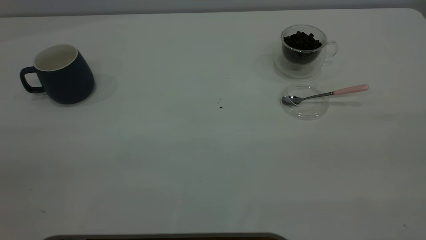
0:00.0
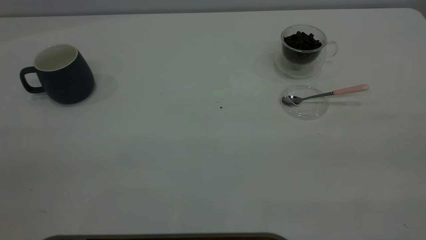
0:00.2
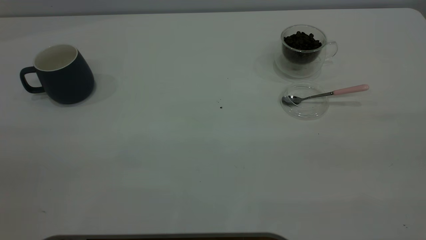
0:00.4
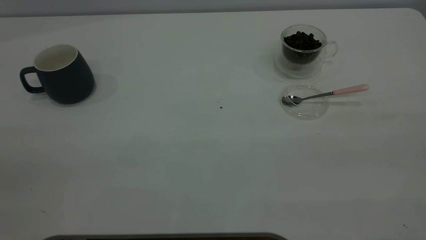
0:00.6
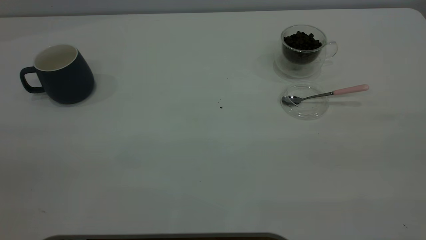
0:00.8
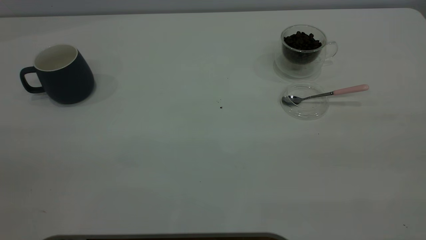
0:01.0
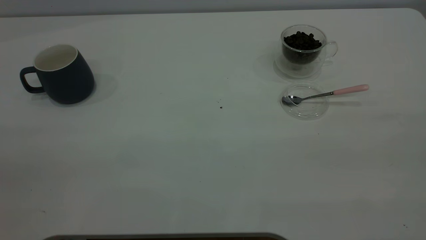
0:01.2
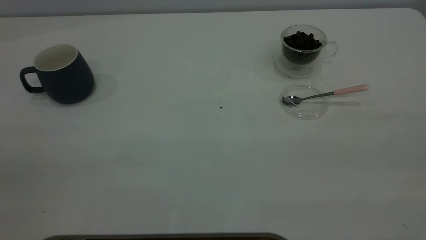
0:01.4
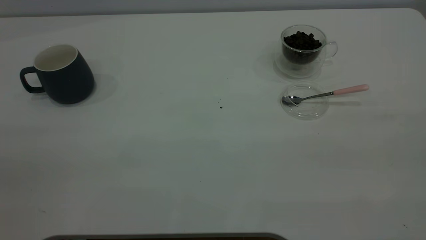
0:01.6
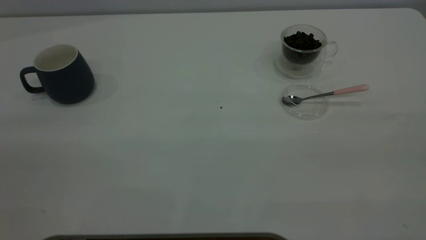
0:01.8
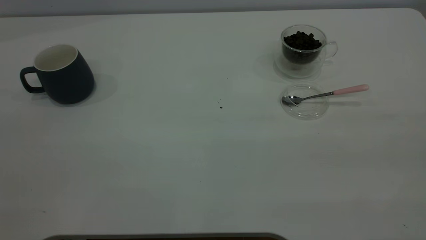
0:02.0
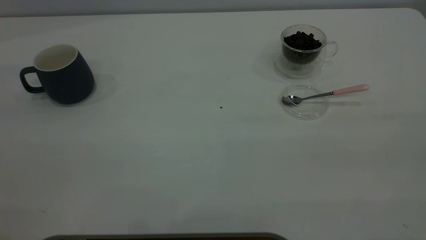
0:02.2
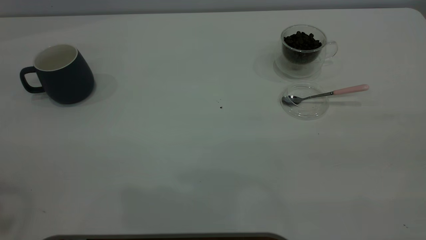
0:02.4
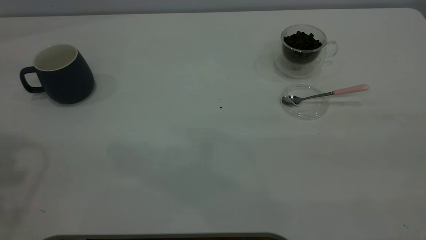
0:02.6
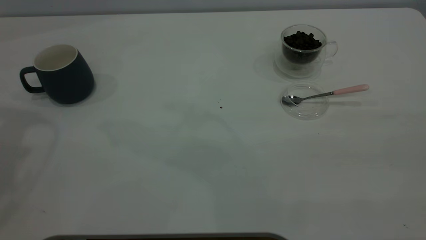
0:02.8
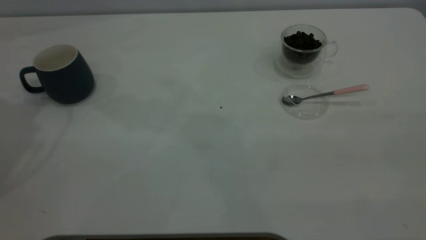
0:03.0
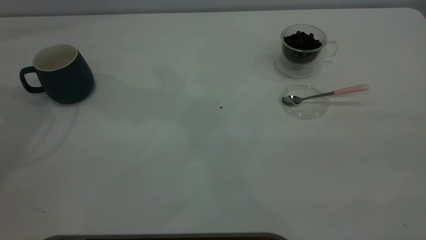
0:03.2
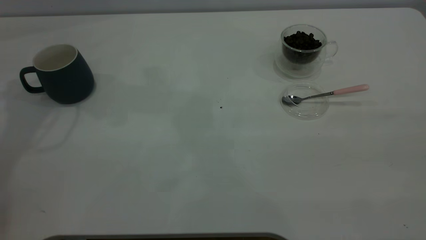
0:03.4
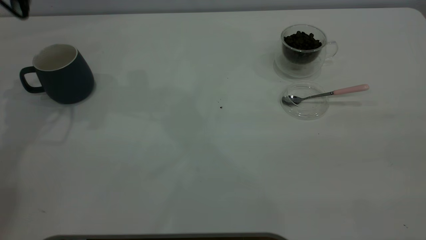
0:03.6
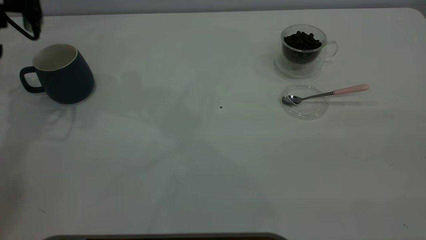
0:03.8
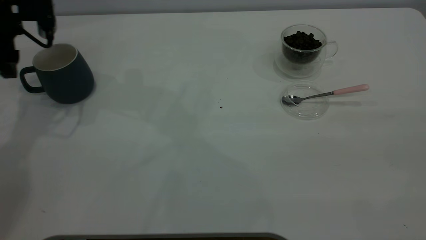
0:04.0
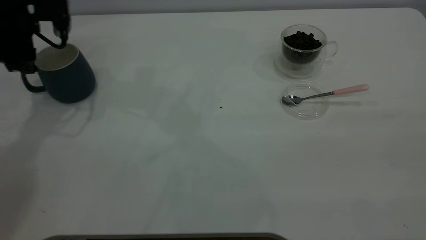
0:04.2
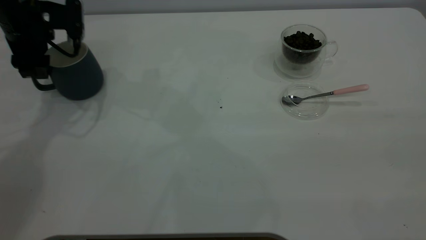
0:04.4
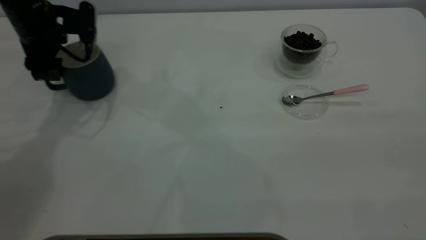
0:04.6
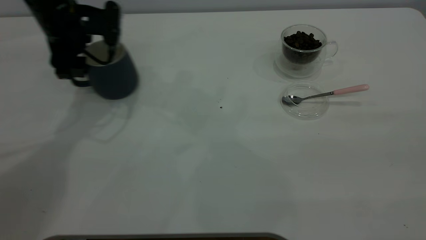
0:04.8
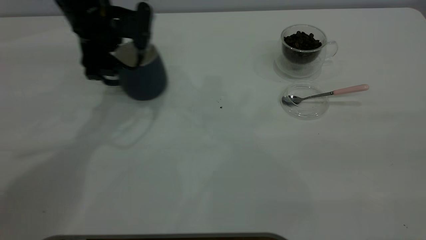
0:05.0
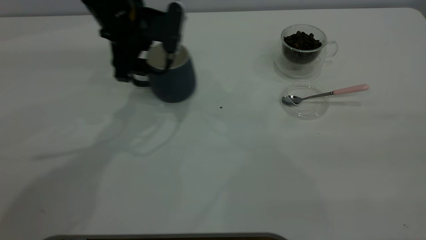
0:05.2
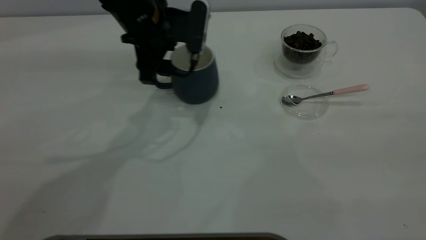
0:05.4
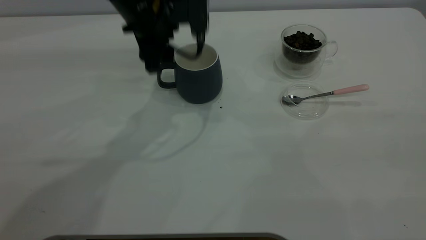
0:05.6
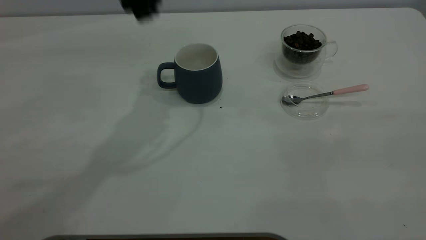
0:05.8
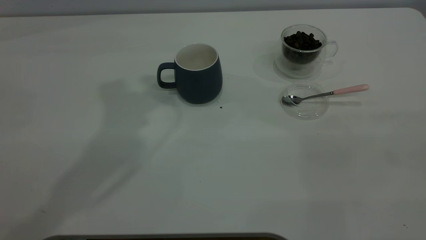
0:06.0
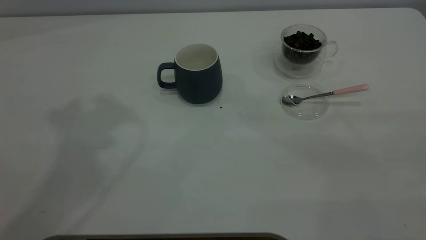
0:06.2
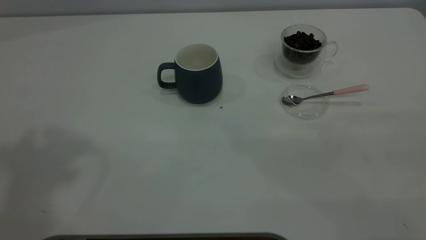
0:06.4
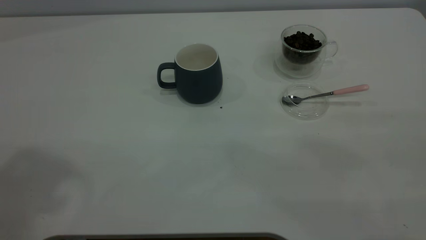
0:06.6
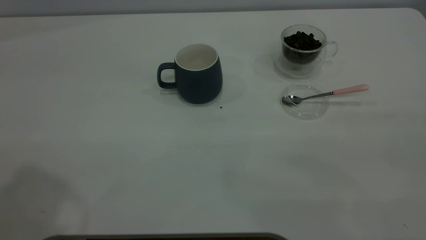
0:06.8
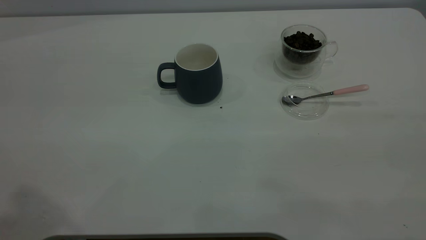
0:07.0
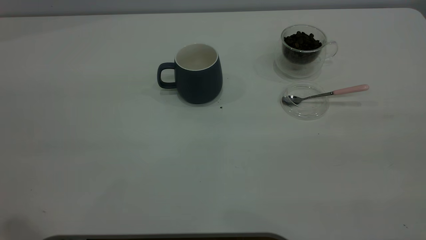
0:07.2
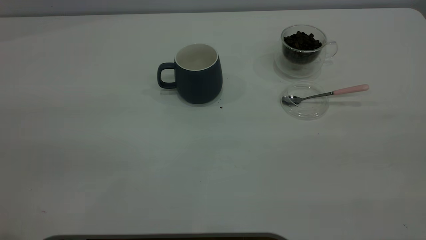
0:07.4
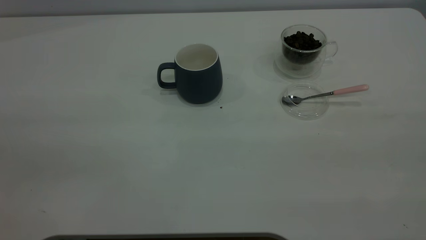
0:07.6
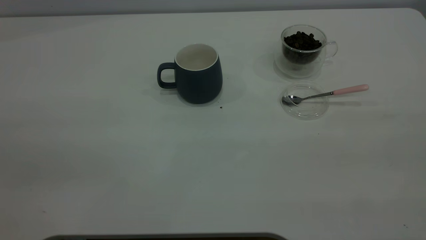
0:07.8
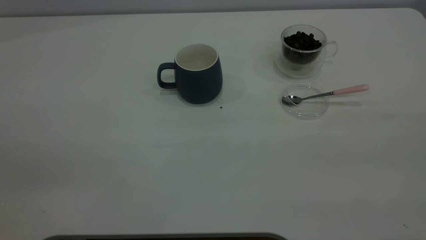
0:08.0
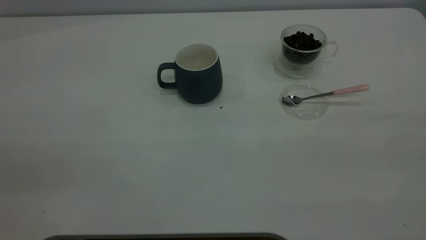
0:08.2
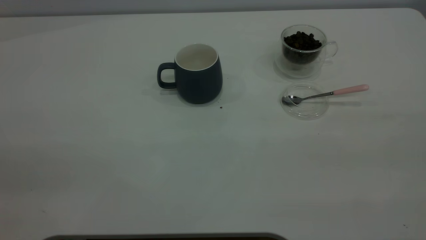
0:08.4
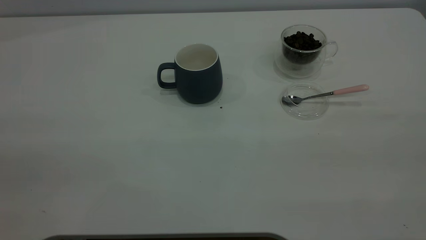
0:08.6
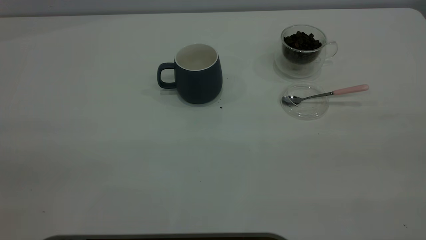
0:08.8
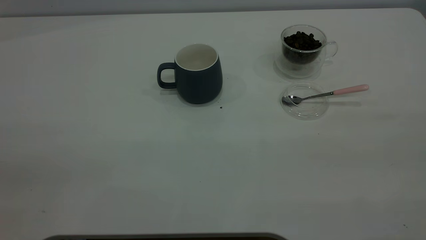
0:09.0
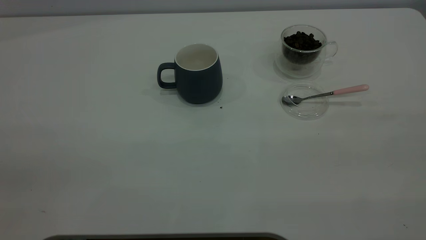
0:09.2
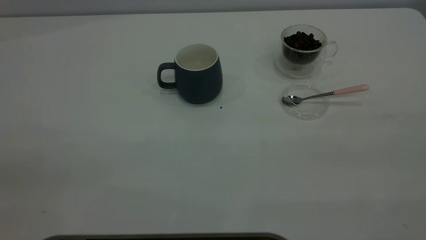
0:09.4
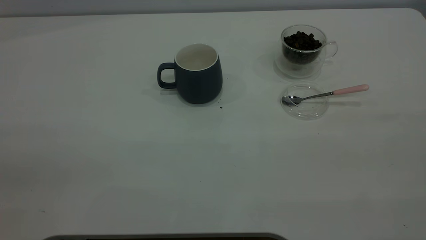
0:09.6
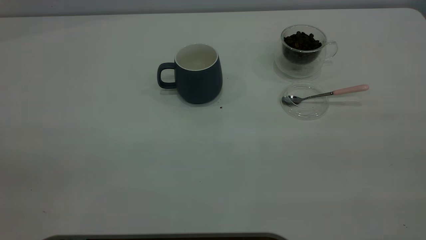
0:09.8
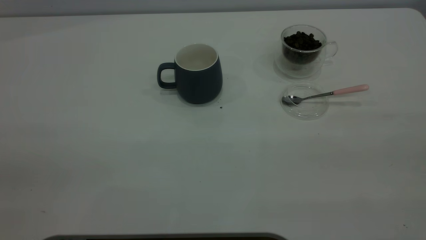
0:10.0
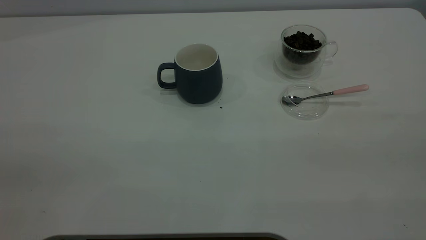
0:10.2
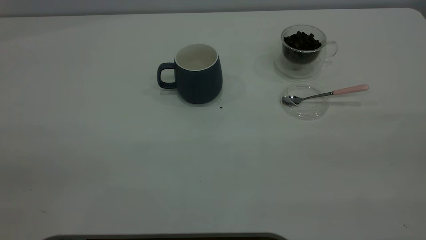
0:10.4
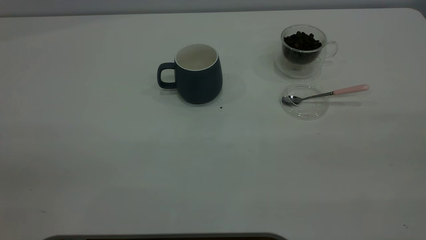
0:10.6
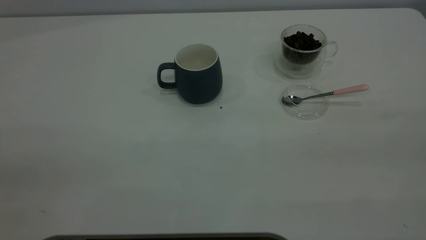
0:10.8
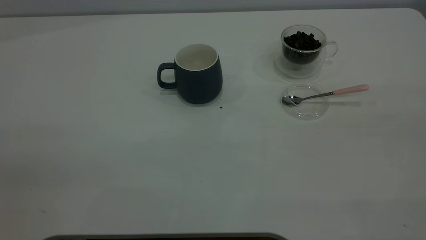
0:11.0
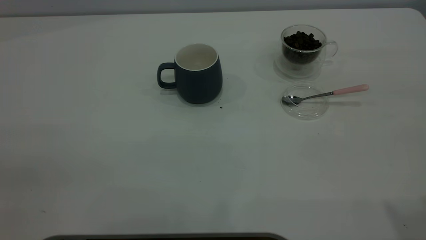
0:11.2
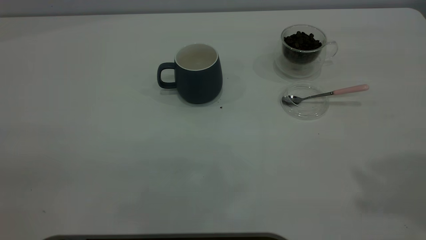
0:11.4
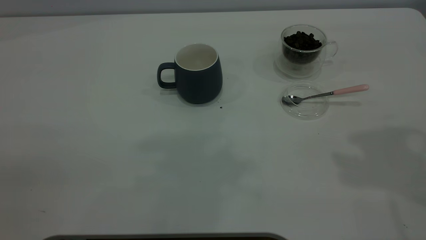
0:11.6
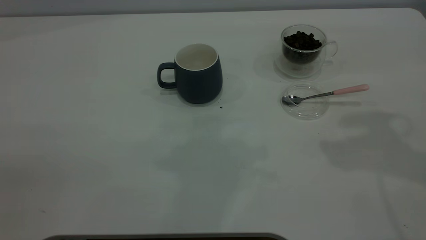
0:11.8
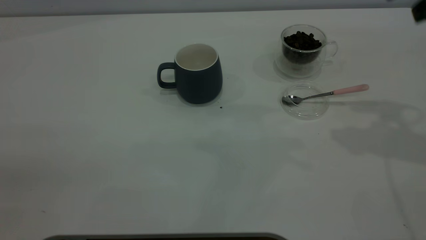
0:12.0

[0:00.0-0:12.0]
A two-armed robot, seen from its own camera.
Task of the whole recording: the left gripper place the grey cup in the center of the table, the right gripper take the pink spoon from the cup lid and scoop out the coffee beans from the coffee cup and put them into the grey cup, the right gripper put the spoon back into the cup lid.
Step, 0:00.0 to 0:05.6: Move the cup to the center of view.
0:00.0 to 0:01.6: Both grippers stay about where they are.
0:03.0 to 0:04.4: The left gripper shifts some 20 cm downward.
0:04.4 to 0:06.0: The left gripper is displaced upward and to the right by some 25 cm.
0:09.0 to 0:10.4: Neither gripper changes place.

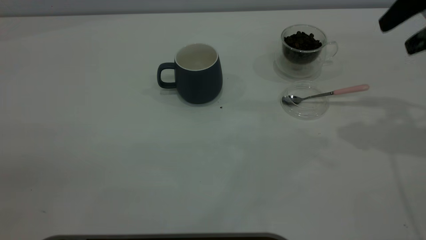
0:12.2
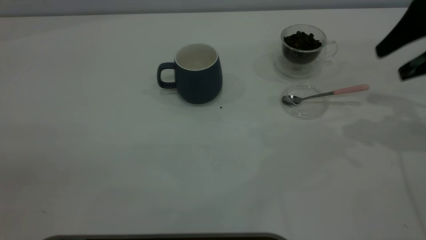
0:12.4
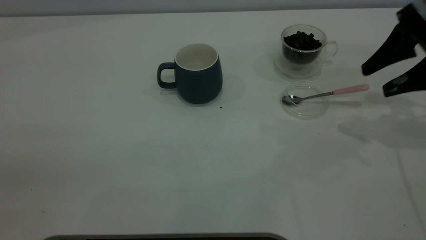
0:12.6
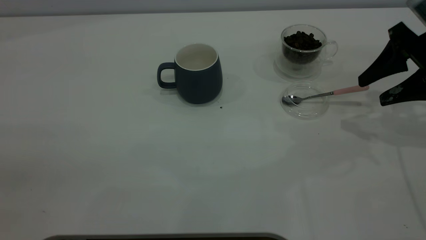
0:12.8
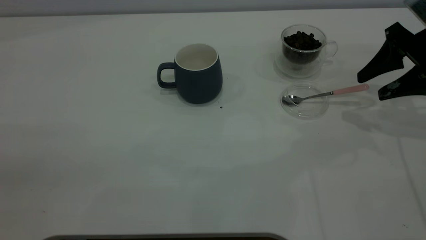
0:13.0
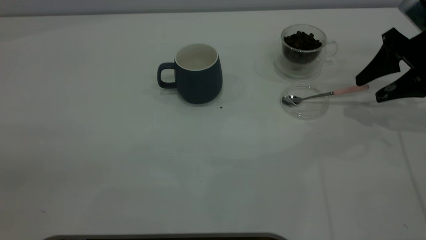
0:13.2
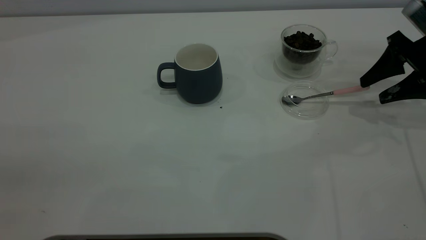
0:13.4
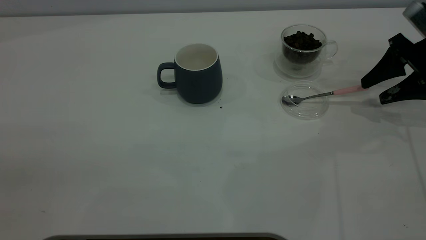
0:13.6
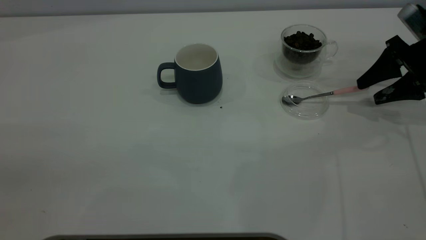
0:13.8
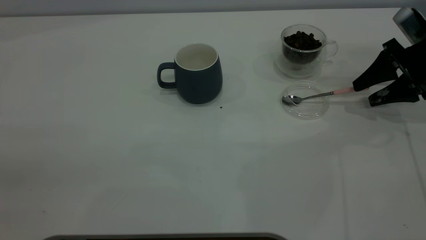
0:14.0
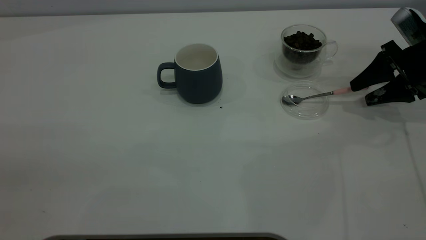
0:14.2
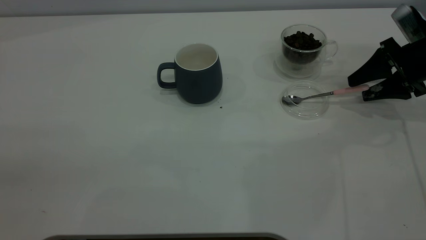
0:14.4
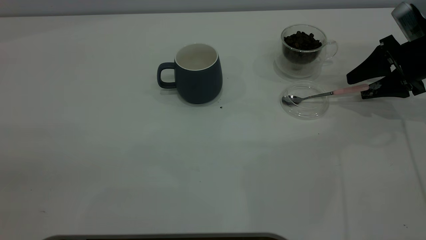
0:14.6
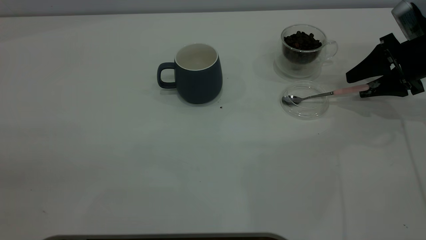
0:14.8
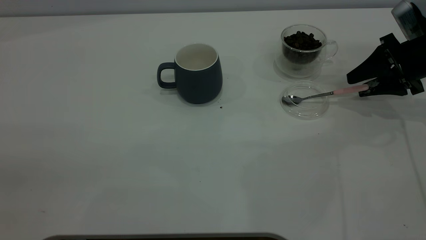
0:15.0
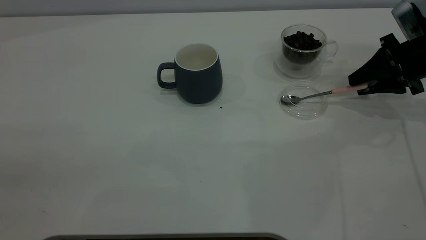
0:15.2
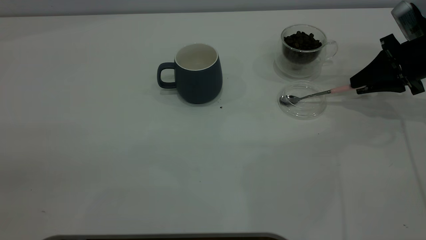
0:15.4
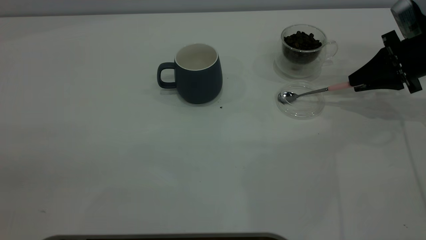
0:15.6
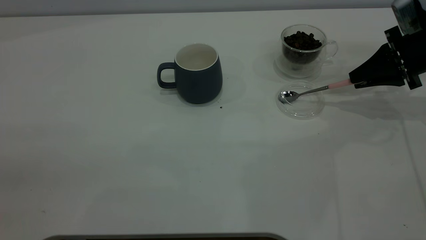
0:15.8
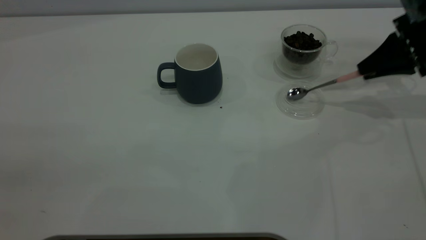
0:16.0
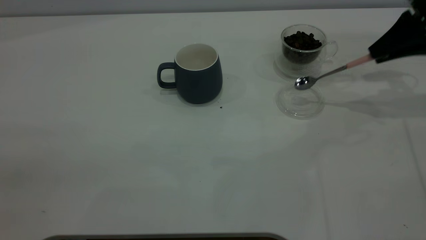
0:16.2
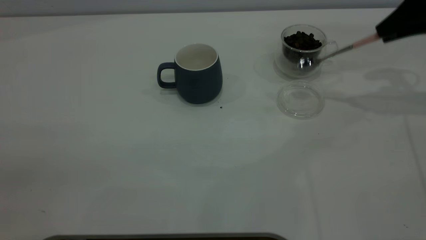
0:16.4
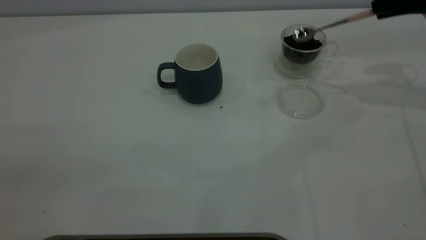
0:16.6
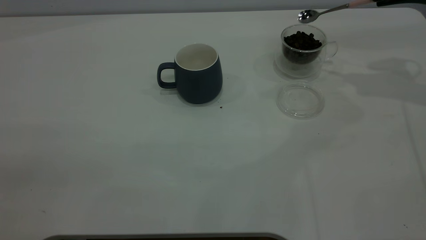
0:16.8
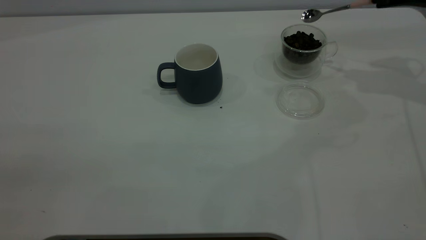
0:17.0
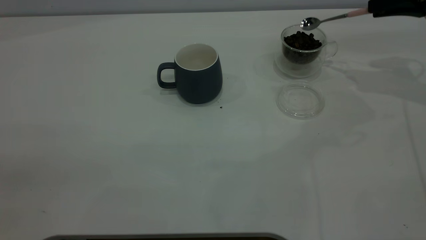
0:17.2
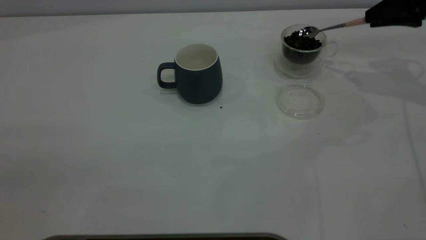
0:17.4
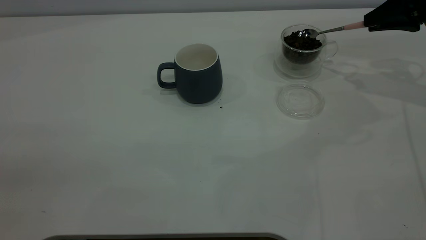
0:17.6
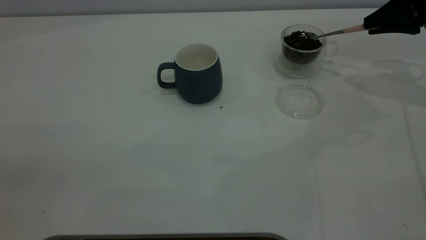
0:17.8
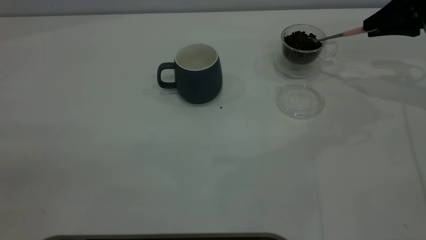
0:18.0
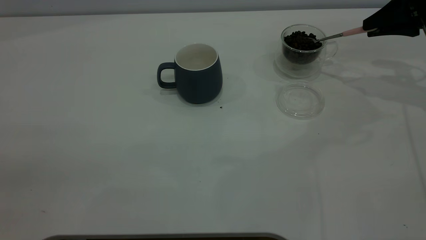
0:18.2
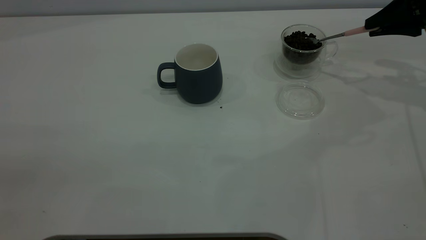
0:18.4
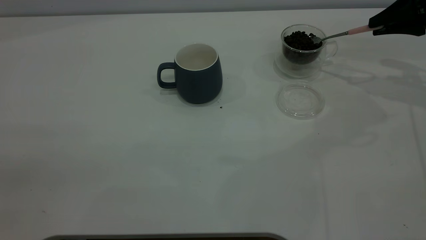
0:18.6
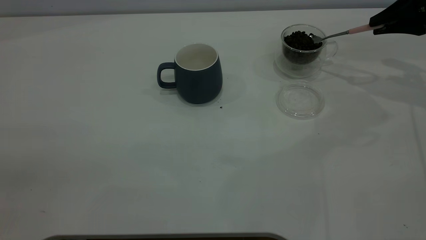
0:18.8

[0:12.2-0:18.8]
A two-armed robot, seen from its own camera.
Task of the whole recording: the left gripper place the grey cup in the center of the table, the right gripper take the pink spoon from the cup lid and scoop out the coffee beans from the coffee cup and put them into the grey cup, the right gripper put the spoon back into the cup lid.
Step, 0:12.2 to 0:16.2: Pick up the spoon.
0:12.2 to 0:13.8: The right gripper is displaced downward and forward by approximately 15 cm.
0:13.8 to 0:15.4: The right gripper closes up.
0:15.4 to 0:17.2: The right gripper is displaced upward by some 10 cm.
